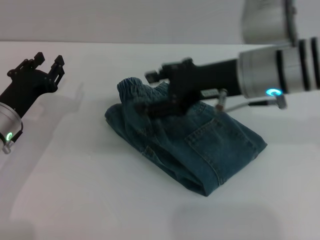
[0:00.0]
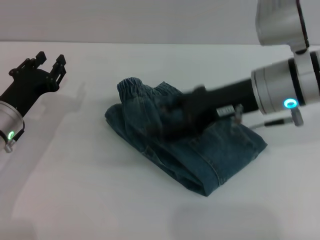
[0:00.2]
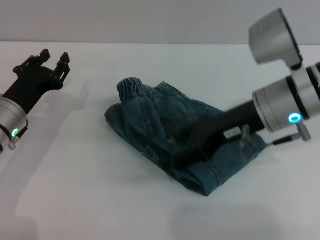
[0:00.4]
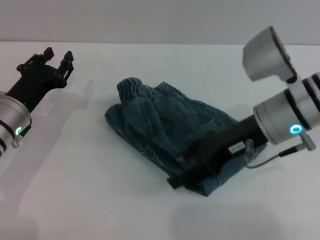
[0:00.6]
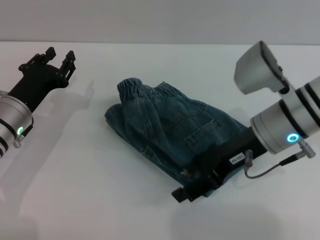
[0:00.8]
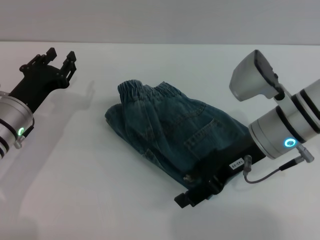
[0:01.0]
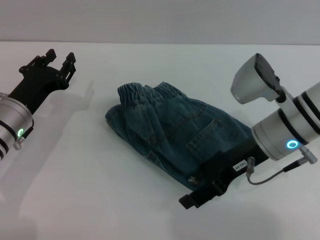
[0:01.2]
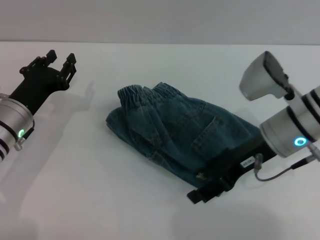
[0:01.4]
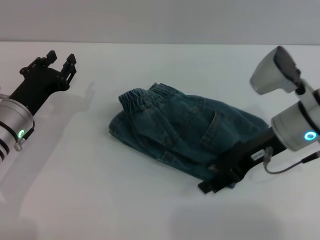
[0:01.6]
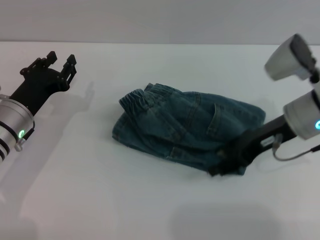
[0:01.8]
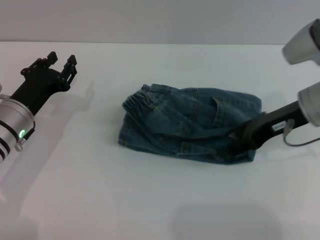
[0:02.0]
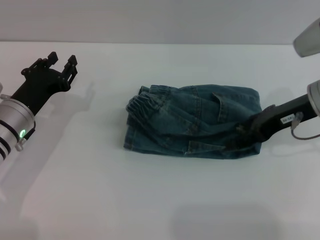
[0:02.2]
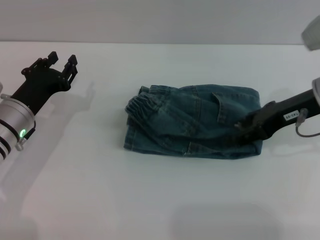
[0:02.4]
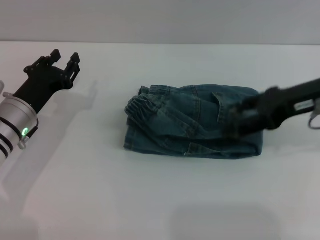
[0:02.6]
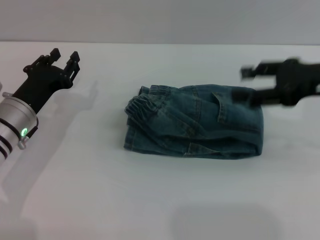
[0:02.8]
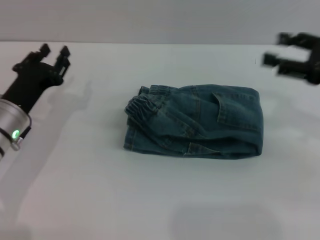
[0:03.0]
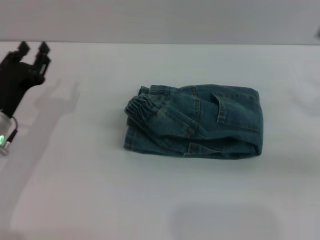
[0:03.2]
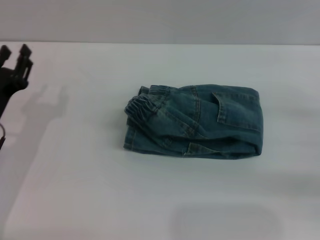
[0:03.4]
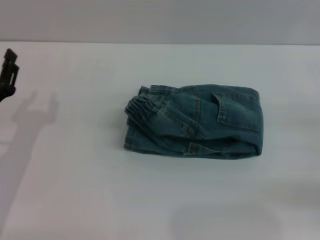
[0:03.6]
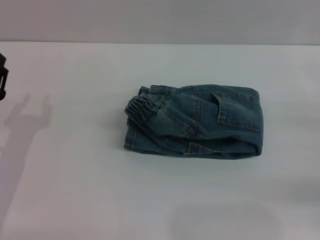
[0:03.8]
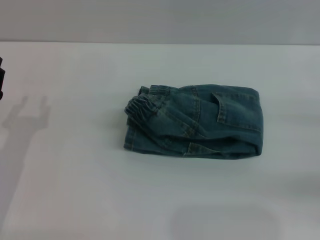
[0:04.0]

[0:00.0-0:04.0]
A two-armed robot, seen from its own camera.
Step, 0:00.0 to 0:02.4: Place the folded trousers onto the center area with the right grippers.
0:00.0 to 0:01.4: The right gripper shifts roughly 5 cm downward.
0:01.4 to 0:02.6: The right gripper shifts roughly 10 cm to the right and upward.
0:02.6 to 0:04.0: The left gripper heads backward, covering roughly 10 cm. The right gripper shifts about 20 cm to the right, downward and backward.

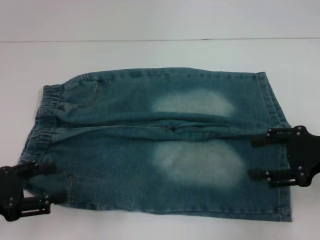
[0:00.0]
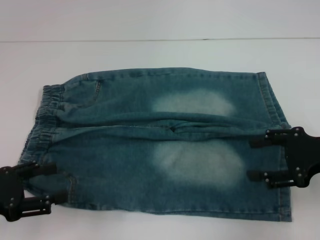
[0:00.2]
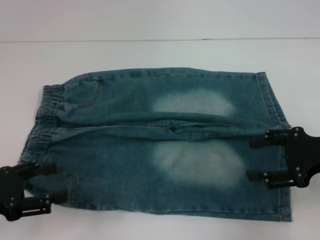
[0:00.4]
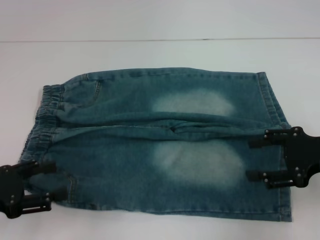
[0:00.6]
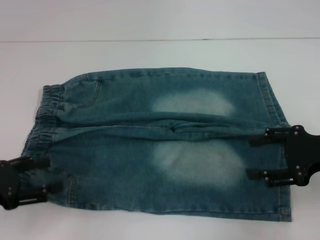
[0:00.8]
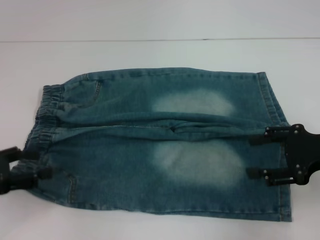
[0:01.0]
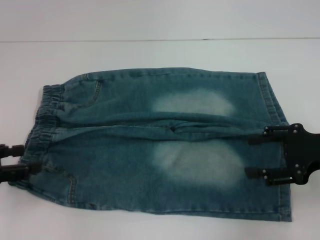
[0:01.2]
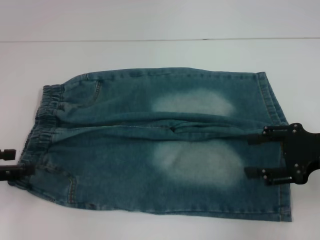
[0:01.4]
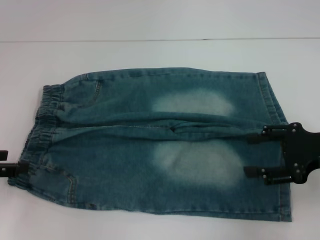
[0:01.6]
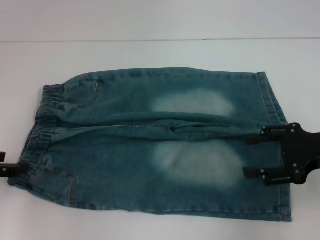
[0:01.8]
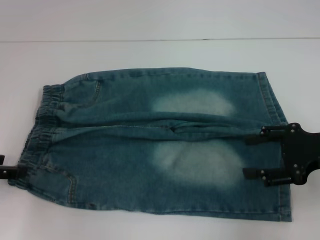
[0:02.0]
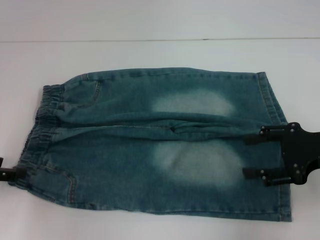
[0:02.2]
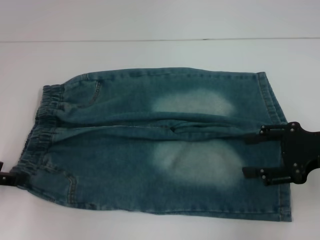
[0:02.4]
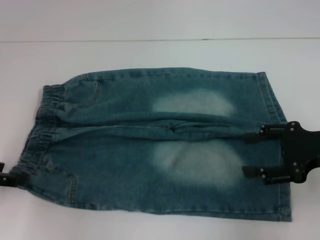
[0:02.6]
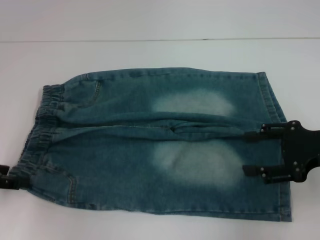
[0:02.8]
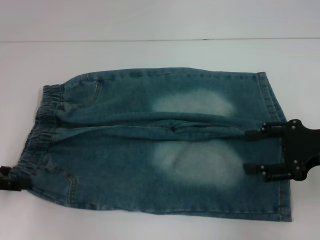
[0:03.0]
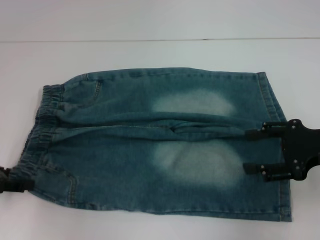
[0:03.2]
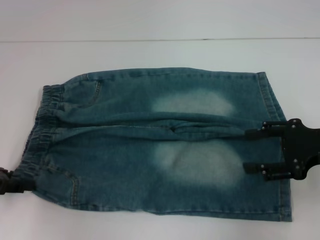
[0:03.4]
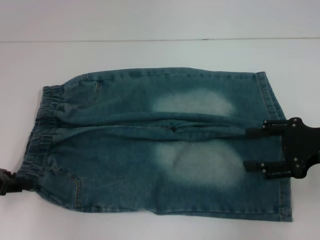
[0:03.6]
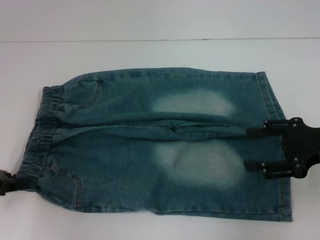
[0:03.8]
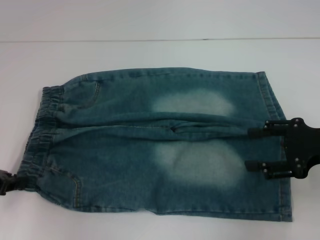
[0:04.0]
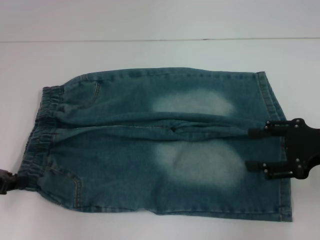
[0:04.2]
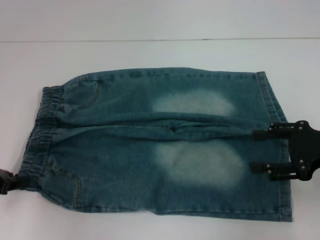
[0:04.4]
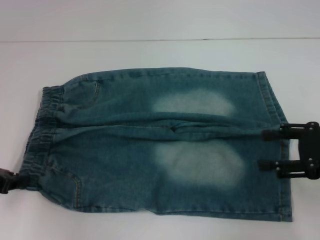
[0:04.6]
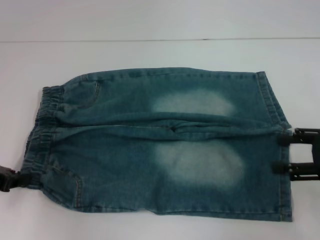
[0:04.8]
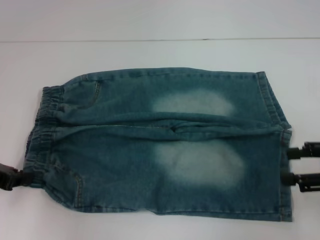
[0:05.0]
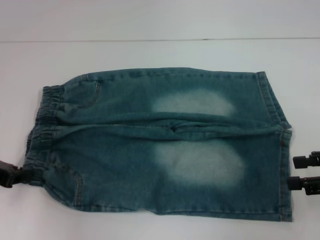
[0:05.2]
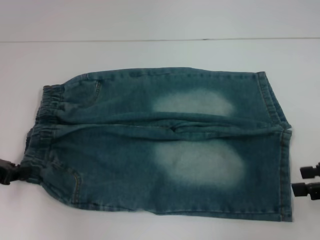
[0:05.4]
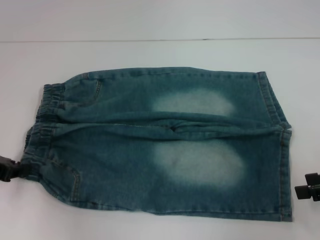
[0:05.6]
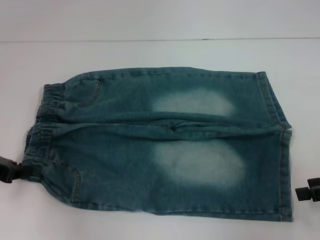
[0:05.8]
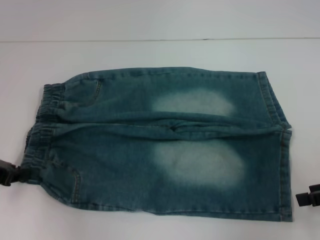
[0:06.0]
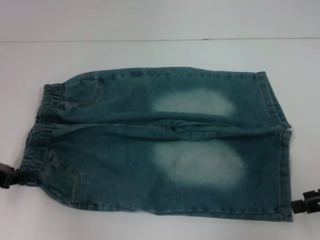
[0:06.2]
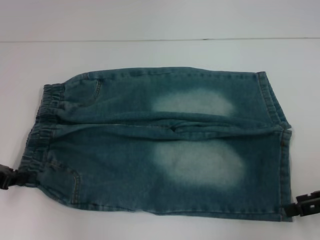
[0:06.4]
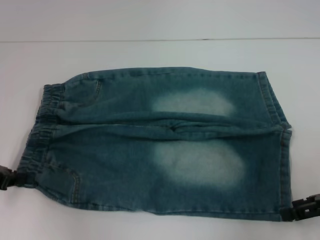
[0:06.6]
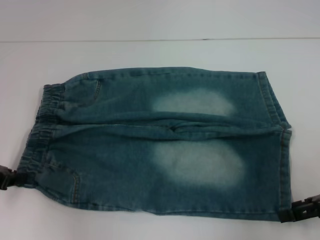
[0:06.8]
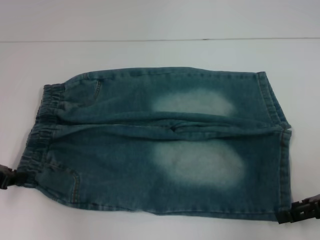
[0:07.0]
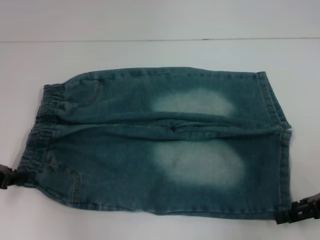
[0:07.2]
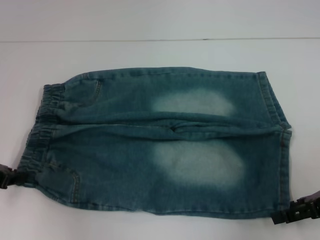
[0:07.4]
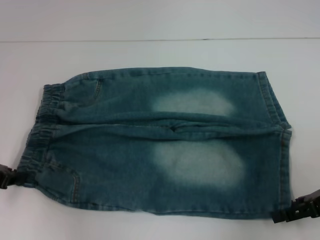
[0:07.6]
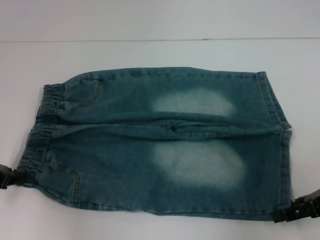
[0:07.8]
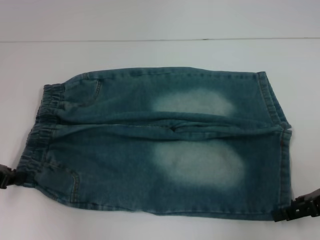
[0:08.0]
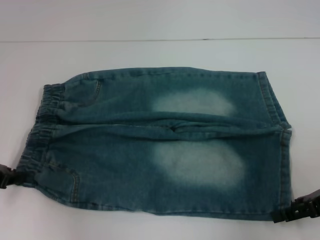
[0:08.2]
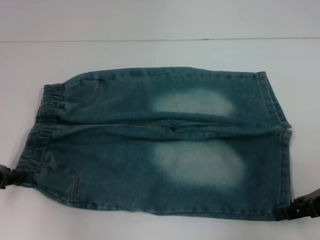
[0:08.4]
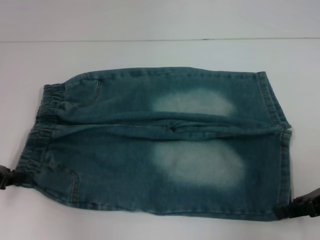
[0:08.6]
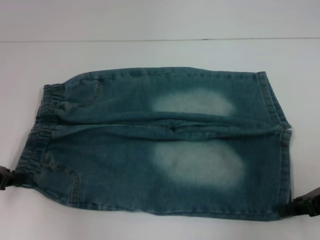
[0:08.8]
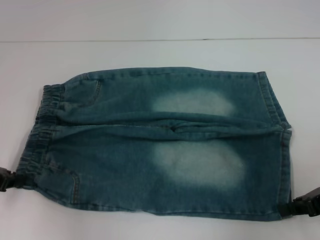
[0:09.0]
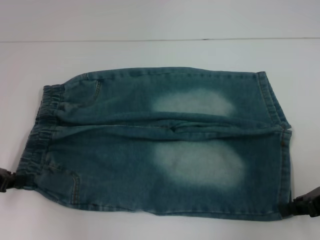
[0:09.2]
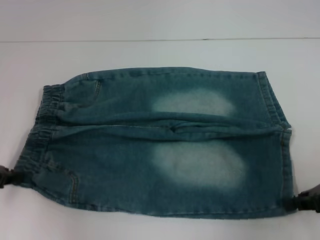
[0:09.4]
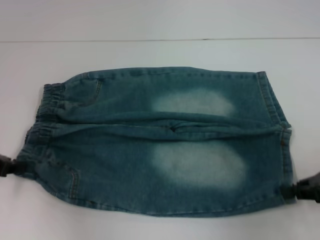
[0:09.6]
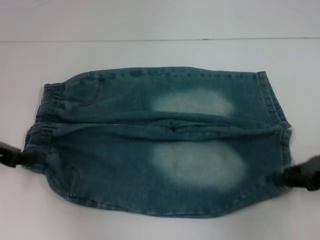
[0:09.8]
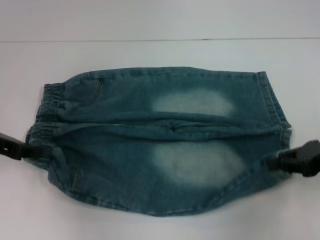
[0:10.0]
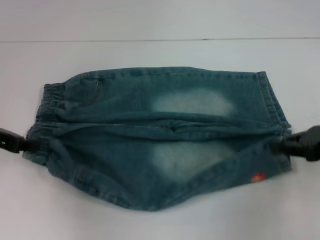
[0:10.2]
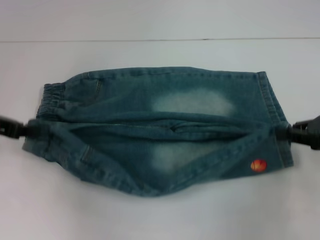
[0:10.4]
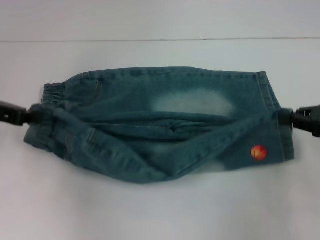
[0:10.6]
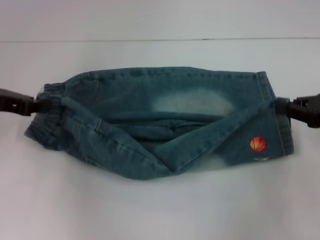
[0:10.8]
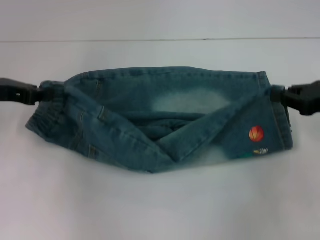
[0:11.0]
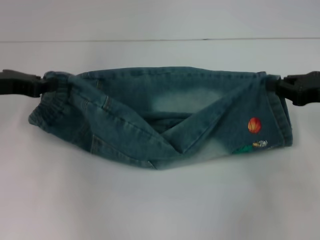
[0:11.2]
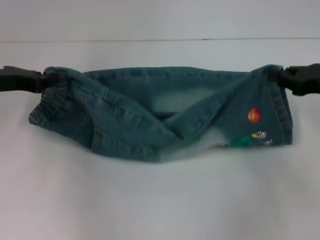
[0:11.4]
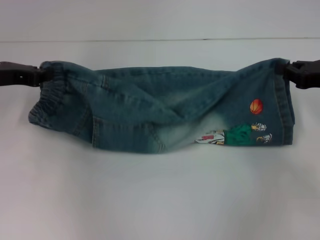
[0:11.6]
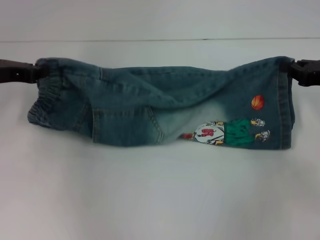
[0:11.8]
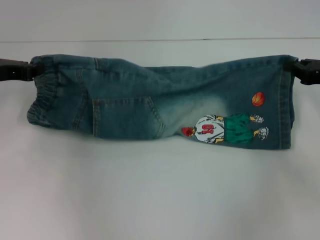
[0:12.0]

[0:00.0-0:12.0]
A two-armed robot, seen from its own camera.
Step, 0:00.0 to 0:04.8: Hold the lower left waistband with your left hand.
Step, 0:05.2 to 0:09.2: Grab the lower right pant leg with your right hand.
0:00.0 to 0:01.6: The left gripper is displaced forward by some 5 cm.
0:01.6 to 0:03.0: There are only small adjustments of the grippers.
0:03.0 to 0:04.4: The left gripper closes its fingers.
0:04.4 to 0:06.0: The right gripper changes place by roughly 5 cm.
0:06.0 to 0:07.6: The grippers stay close to where they were, moving slightly.
0:07.6 to 0:09.0: The right gripper closes.
0:09.0 to 0:10.4: The right gripper ends up roughly 5 cm from where it was; the left gripper ends up approximately 5 cm from where it was.
0:10.4 to 0:12.0: The right gripper shifts about 5 cm forward.

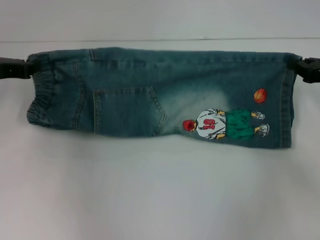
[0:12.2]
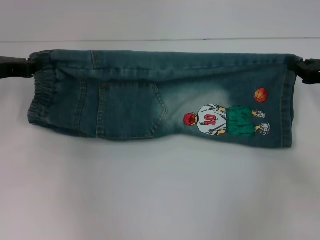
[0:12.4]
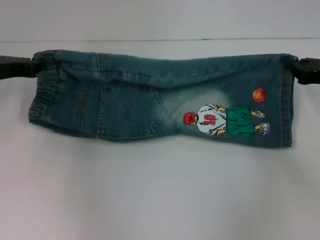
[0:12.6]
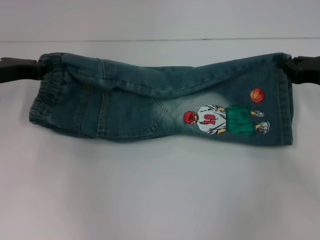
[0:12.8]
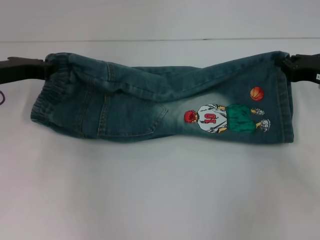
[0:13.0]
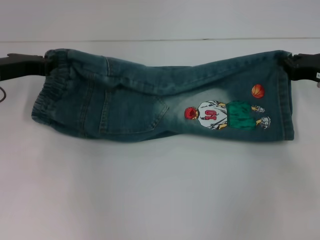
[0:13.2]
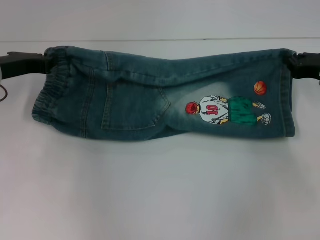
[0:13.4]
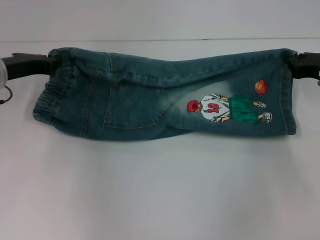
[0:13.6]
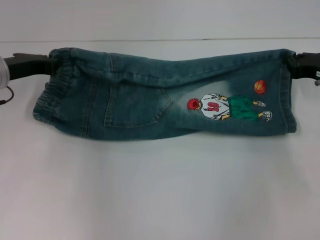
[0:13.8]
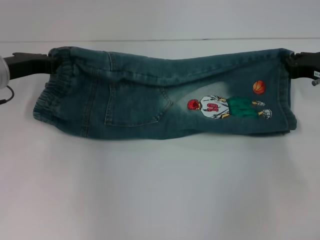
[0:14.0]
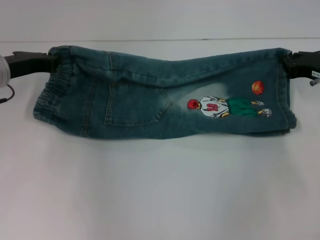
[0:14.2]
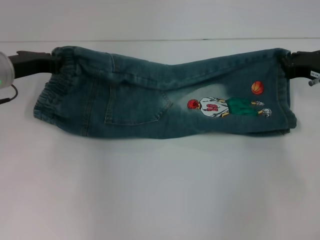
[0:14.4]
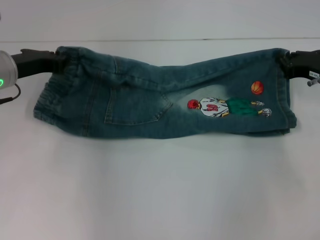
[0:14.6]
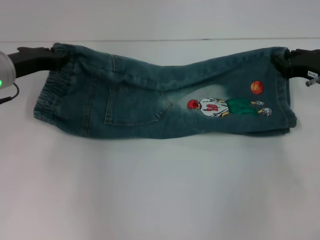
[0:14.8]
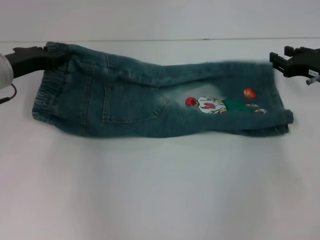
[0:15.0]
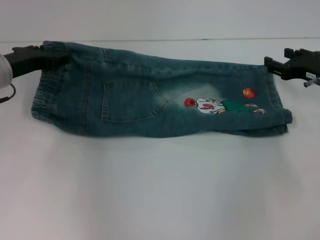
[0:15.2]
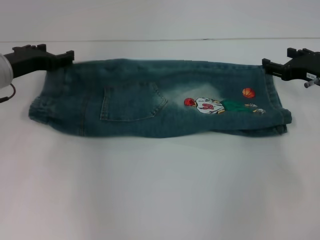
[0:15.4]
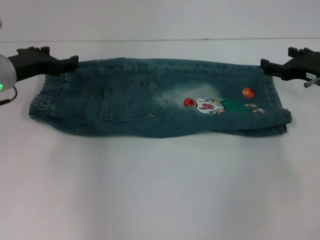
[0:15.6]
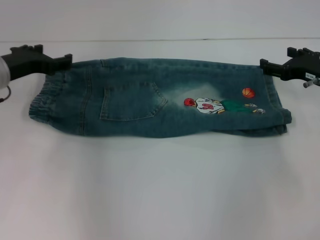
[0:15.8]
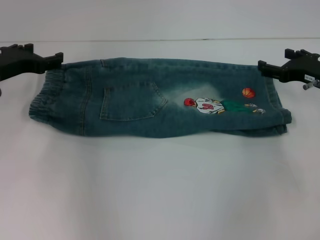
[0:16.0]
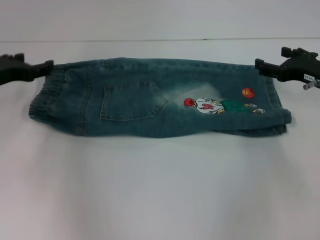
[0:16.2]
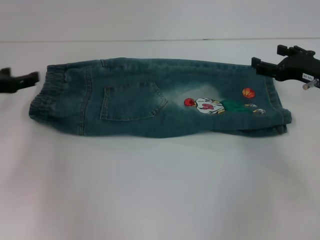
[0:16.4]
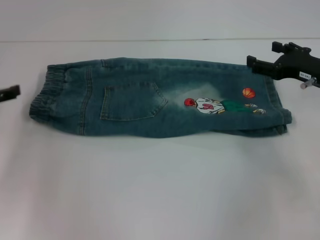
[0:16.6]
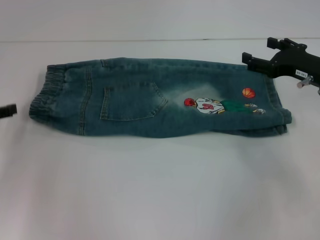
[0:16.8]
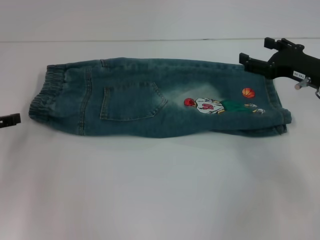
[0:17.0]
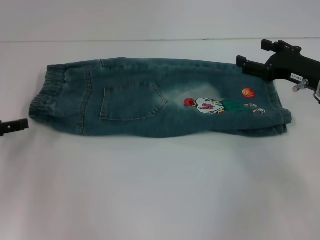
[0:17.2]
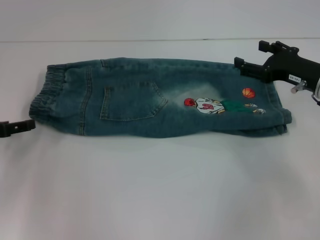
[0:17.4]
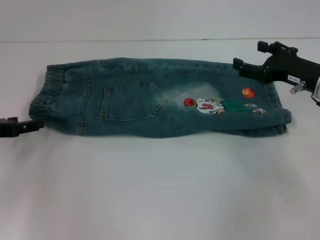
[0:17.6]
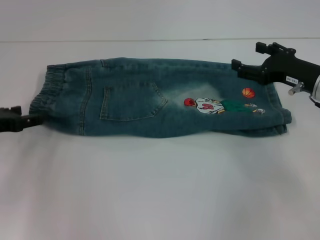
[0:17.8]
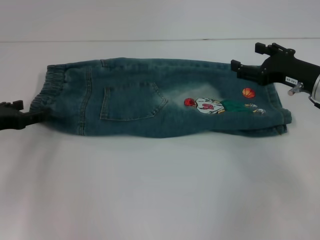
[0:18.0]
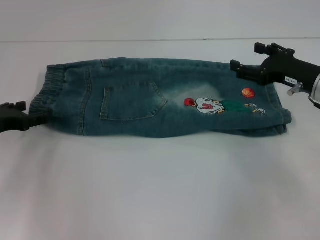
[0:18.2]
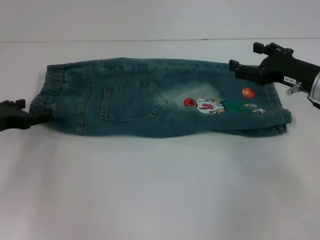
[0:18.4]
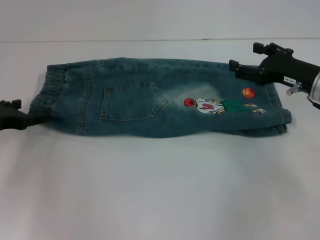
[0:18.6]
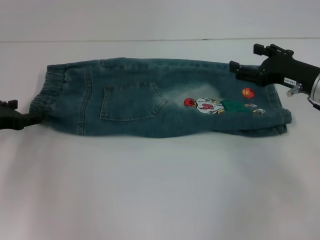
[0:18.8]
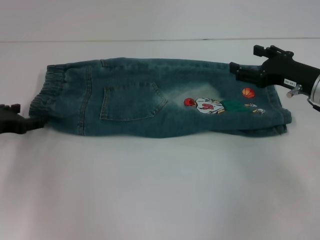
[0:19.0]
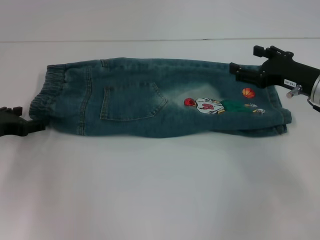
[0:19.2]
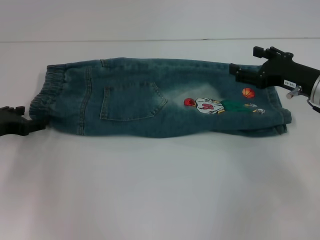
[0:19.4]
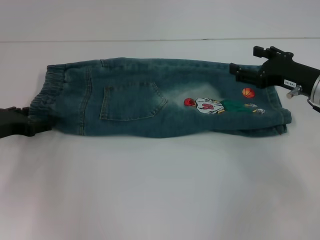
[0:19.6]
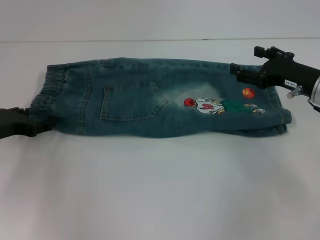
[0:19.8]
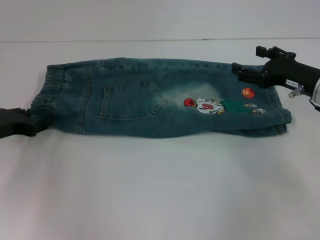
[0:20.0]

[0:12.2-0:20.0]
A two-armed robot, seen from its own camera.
Step, 0:12.2 to 0:15.0: Fold upward with your right hand.
Step, 0:15.2 to 0:15.6: Fold upward with your left hand.
0:12.2 to 0:13.8: The grippers move only a little.
0:13.8 to 0:15.4: The left gripper opens, while the right gripper opens up.
0:15.4 to 0:16.8: The left gripper moves to the left and backward, approximately 15 cm.
0:16.8 to 0:18.4: The left gripper moves roughly 5 cm.
0:18.4 to 0:20.0: There are only small adjustments of the grippers.
